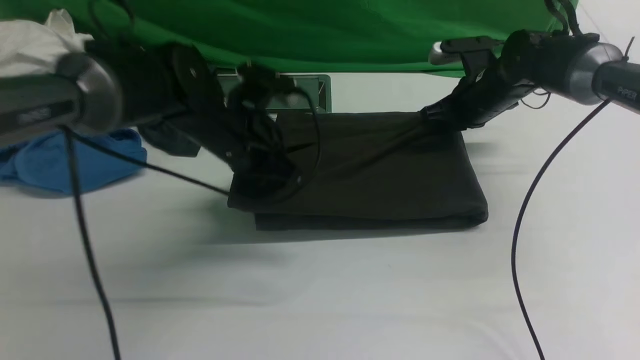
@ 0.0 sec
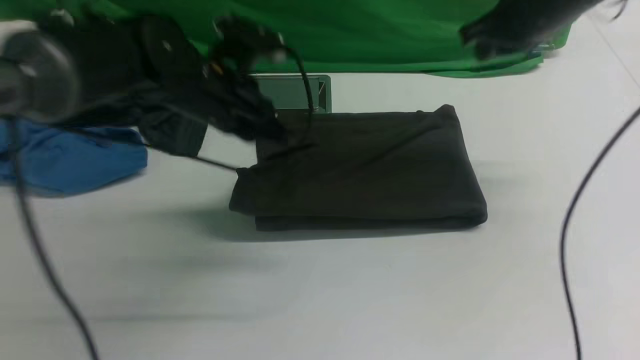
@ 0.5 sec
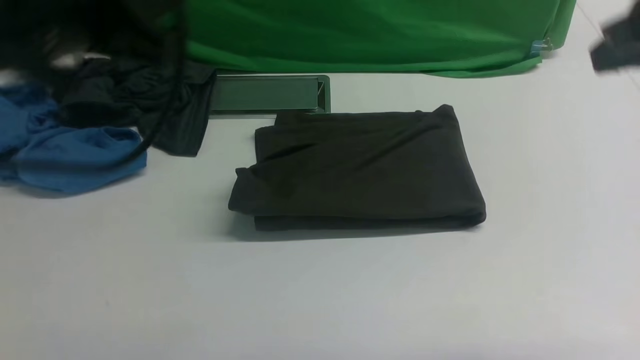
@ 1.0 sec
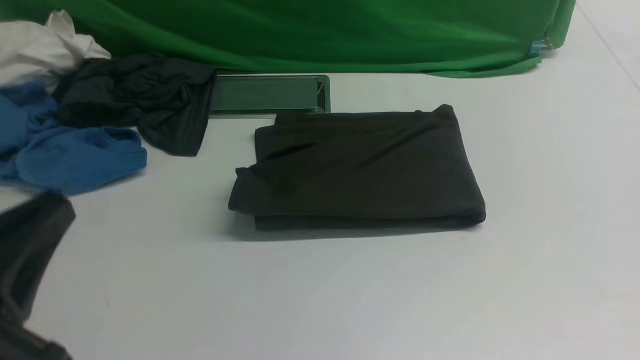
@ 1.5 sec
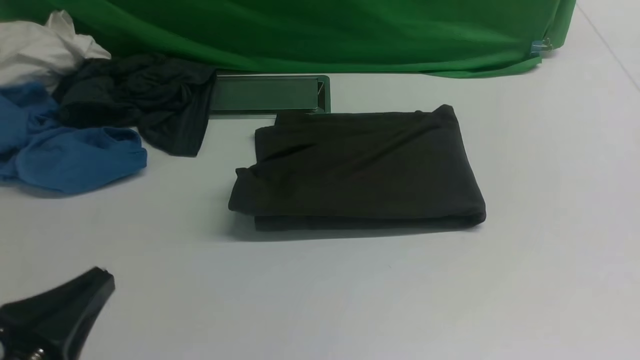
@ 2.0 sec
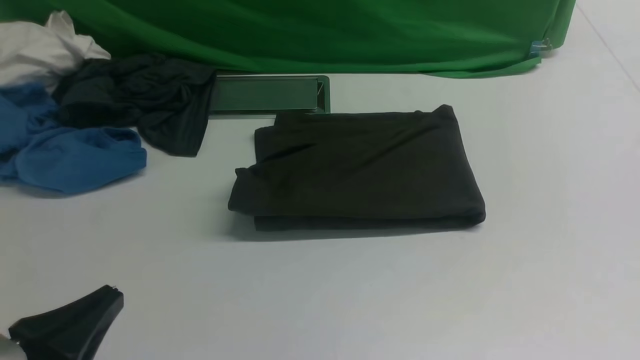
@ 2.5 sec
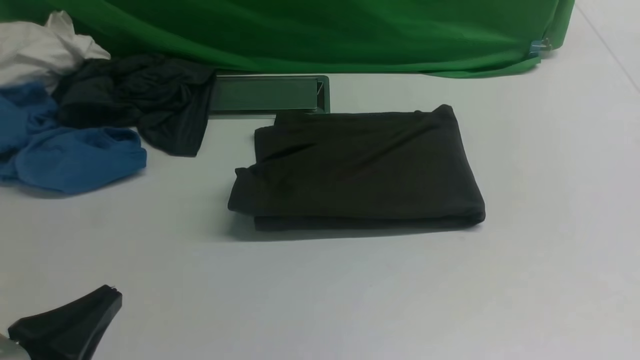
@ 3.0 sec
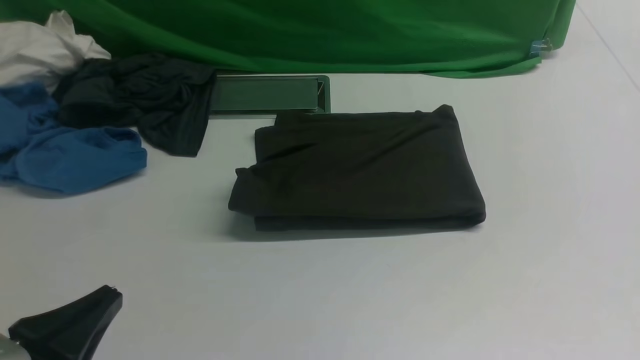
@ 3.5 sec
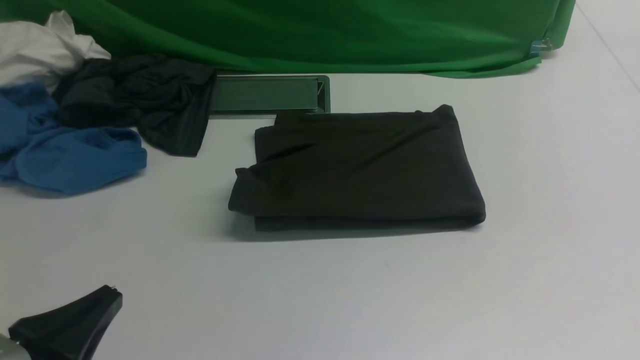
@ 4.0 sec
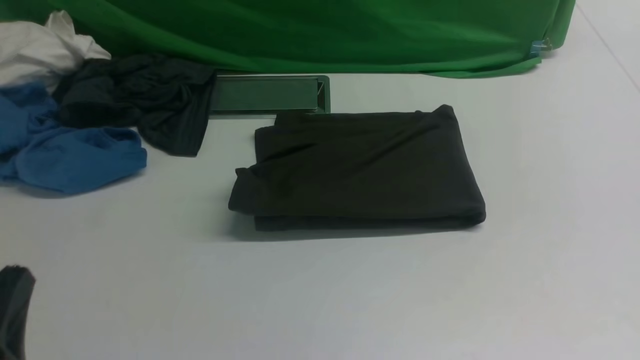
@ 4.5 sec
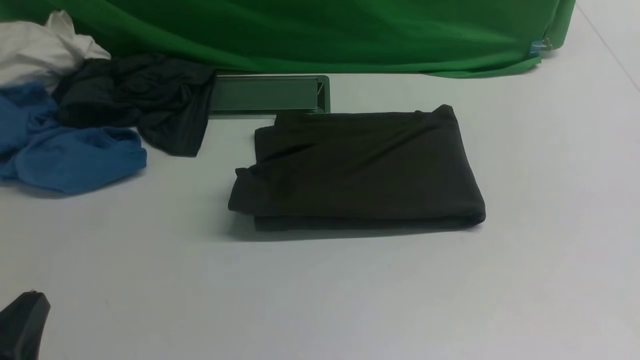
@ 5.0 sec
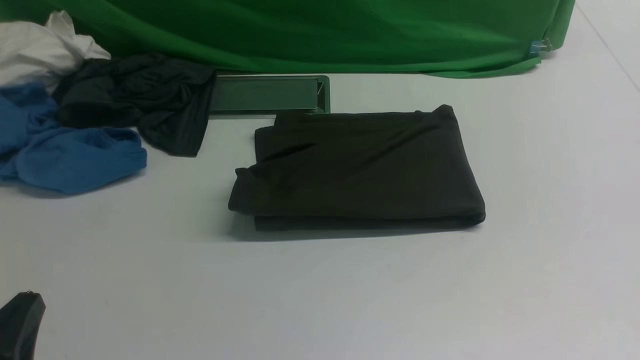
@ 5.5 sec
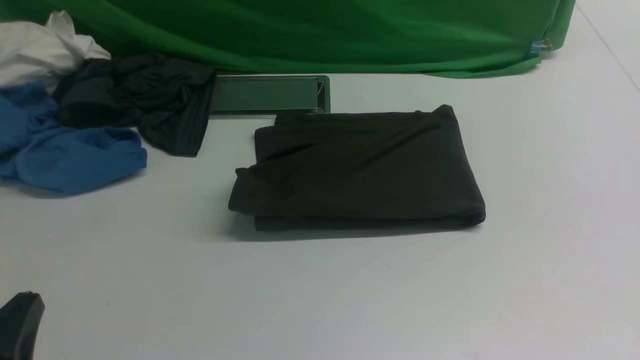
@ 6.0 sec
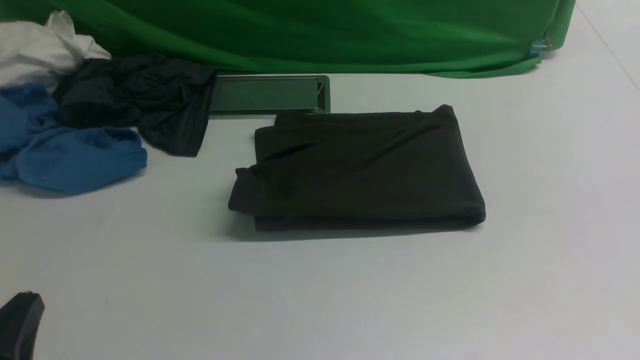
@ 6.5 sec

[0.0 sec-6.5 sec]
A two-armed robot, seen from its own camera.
0.0 sec to 2.0 sec: Both grippers move backward, about 35 cm.

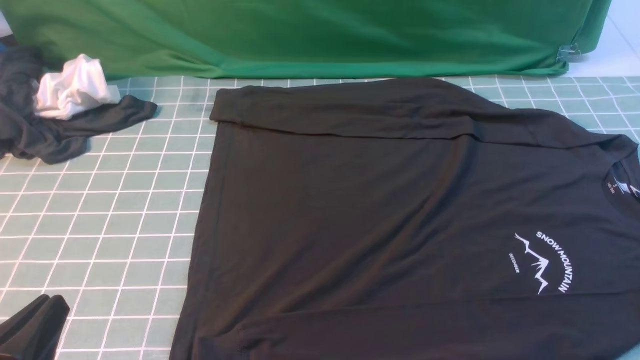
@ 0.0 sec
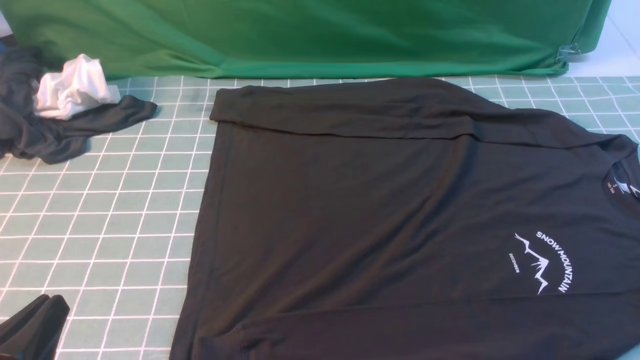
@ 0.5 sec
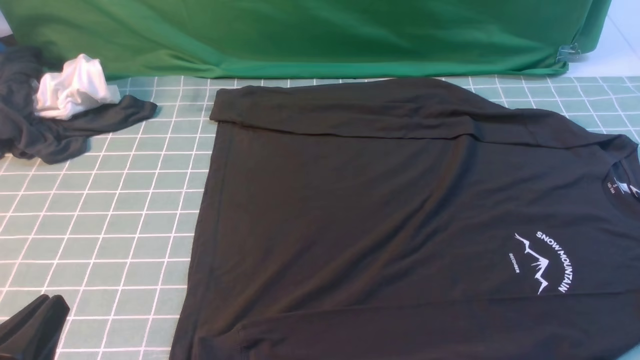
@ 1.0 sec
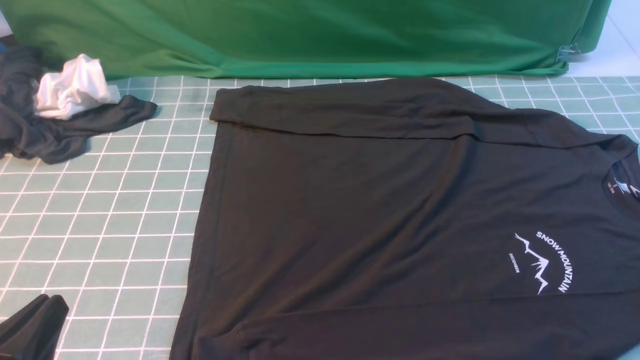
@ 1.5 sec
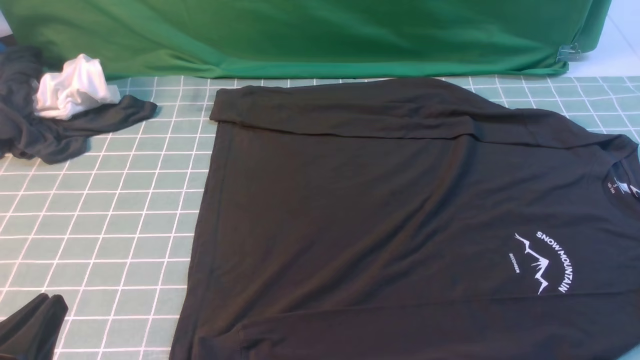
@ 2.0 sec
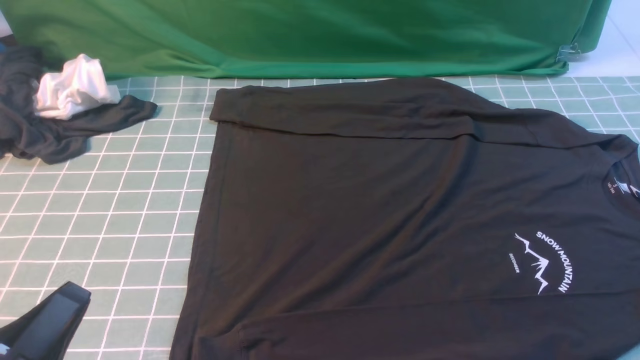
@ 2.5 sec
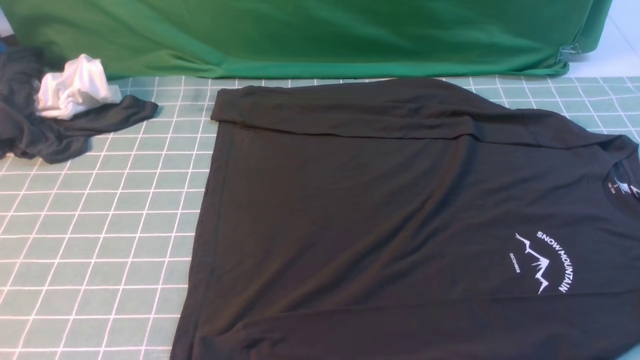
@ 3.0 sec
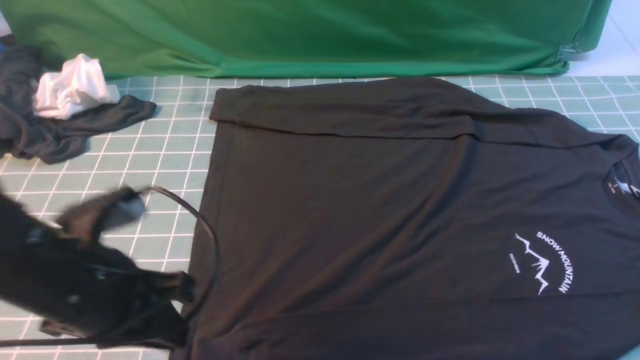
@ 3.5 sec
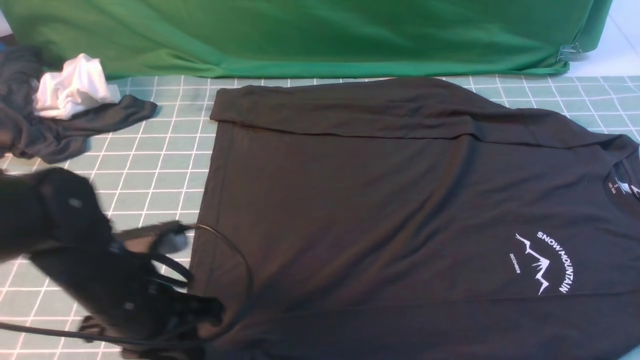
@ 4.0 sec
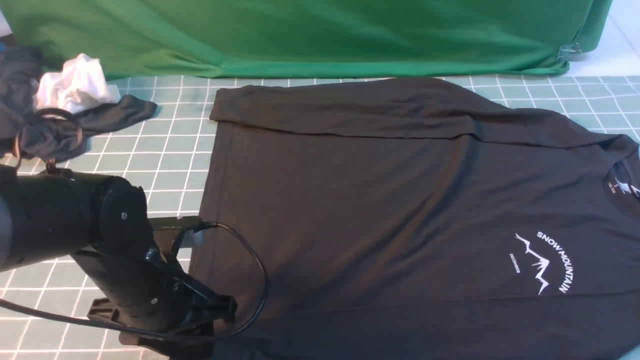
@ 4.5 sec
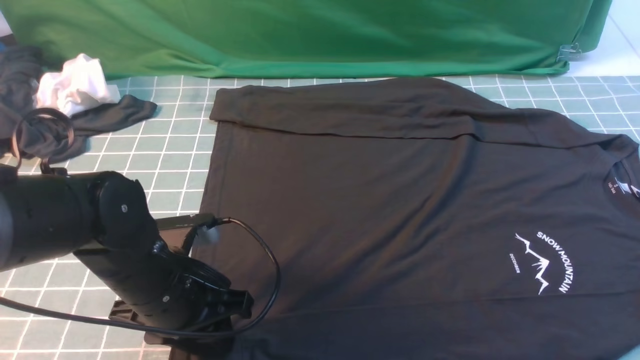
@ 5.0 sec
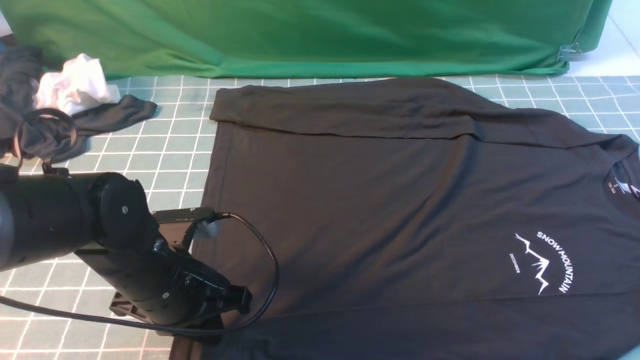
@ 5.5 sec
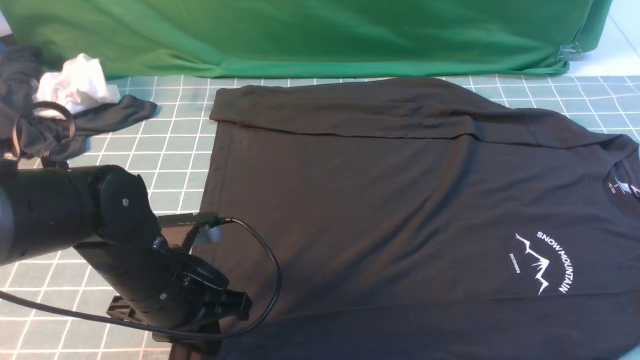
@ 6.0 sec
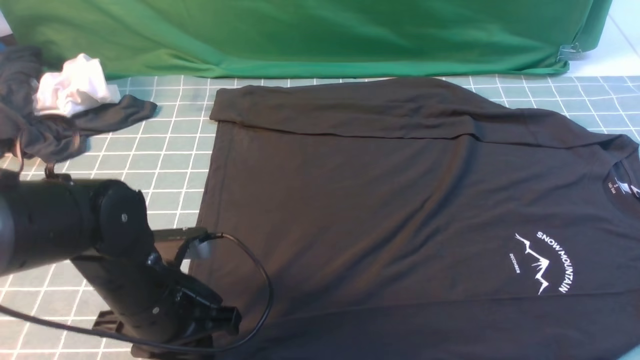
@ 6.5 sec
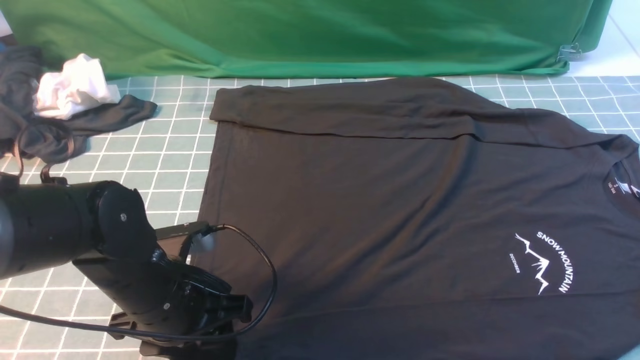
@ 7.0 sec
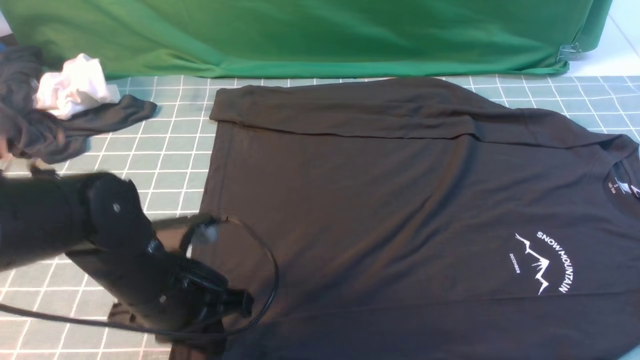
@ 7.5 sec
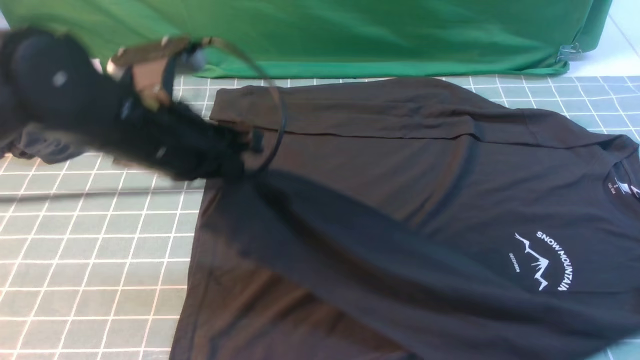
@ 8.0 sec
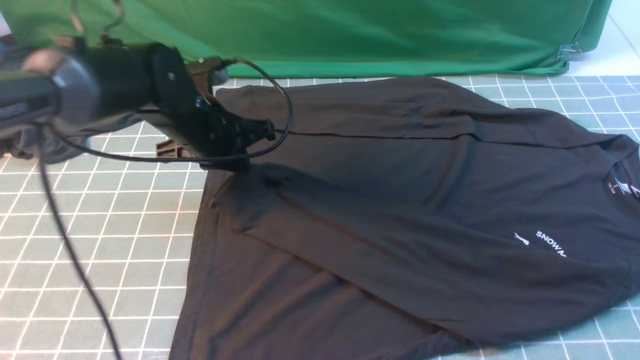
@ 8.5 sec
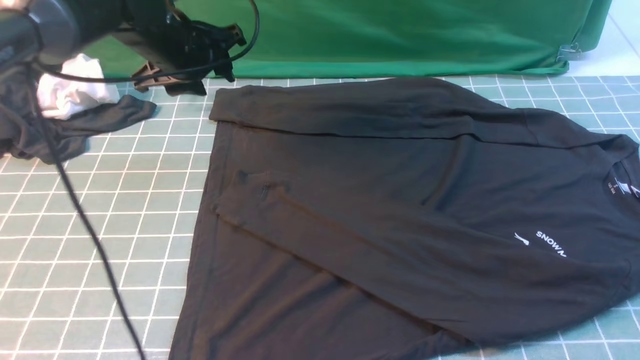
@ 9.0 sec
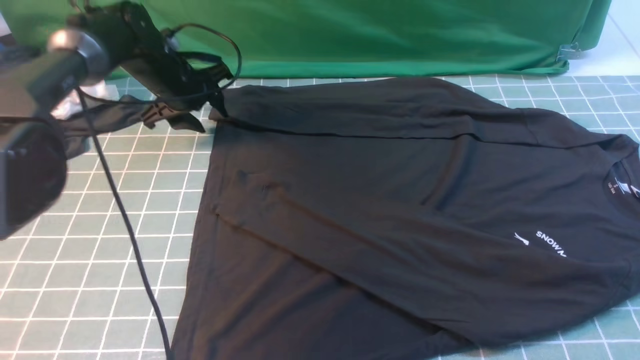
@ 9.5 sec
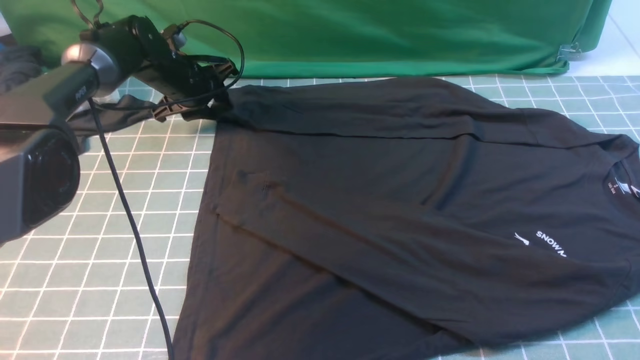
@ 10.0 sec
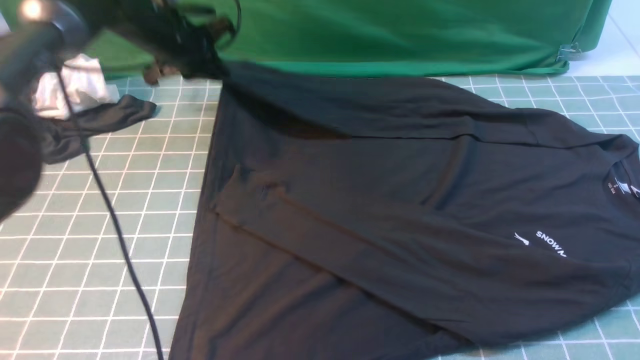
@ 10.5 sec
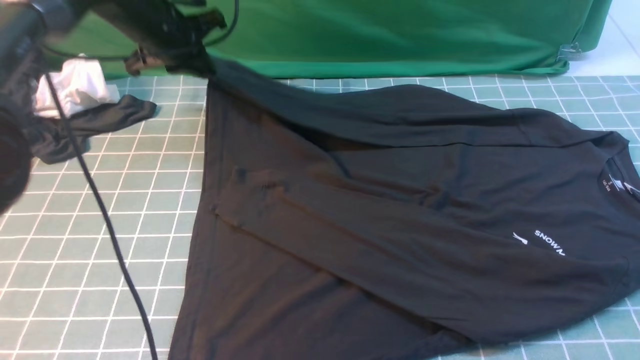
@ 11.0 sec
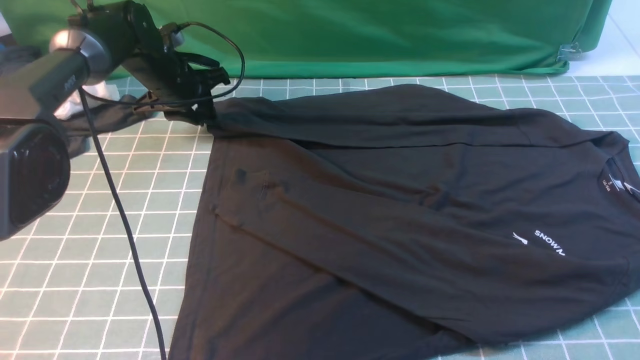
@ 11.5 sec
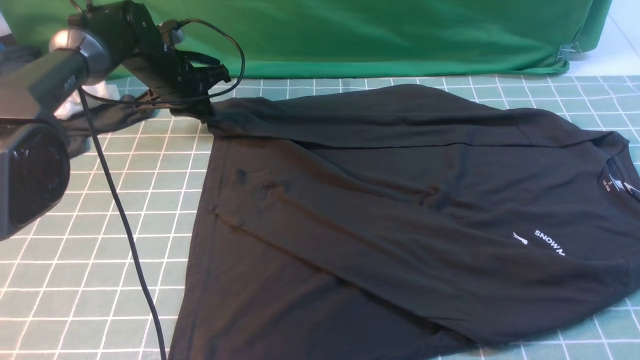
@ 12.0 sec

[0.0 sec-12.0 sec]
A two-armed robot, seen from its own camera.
Step, 0.0 sec to 6.0 sec: use the left arm to clamp the cuff closest to it.
Step, 6.5 sec to 8.5 sec: use the left arm to drag and place the cuff at the centered position on the left edge of the fabric.
2.0 sec to 4.0 sec: The left gripper goes roughly 15 cm forward and to the right.
4.0 sec to 6.0 sec: The left gripper opens, then closes once more.
6.0 sec to 8.0 sec: The left gripper moves upward and forward, some 15 cm, and opens, then closes once more.
8.0 sec to 10.0 sec: The left gripper goes roughly 30 cm forward and downward, and opens its fingers.
10.0 sec to 12.0 sec: The left gripper travels upward and back again, some 10 cm each way.

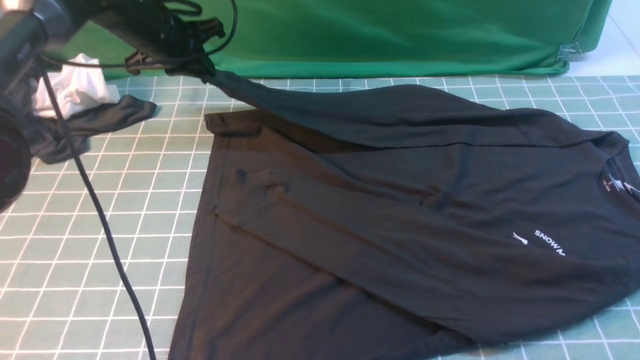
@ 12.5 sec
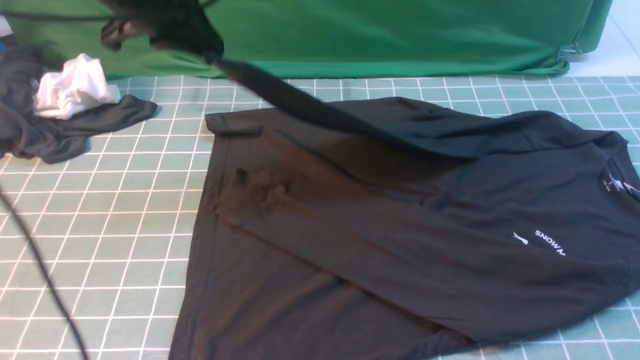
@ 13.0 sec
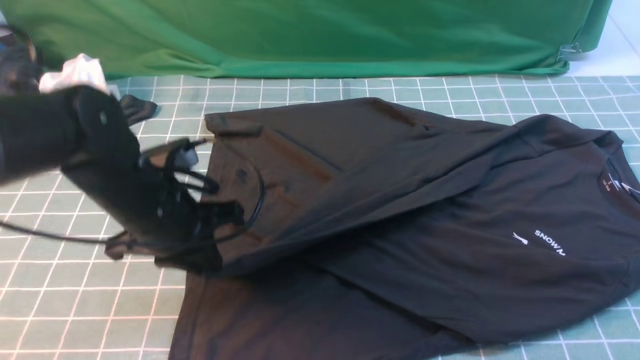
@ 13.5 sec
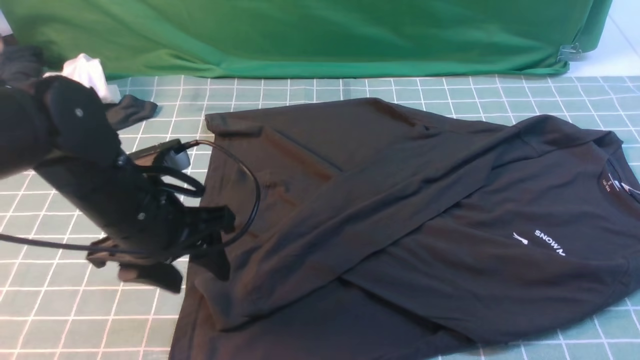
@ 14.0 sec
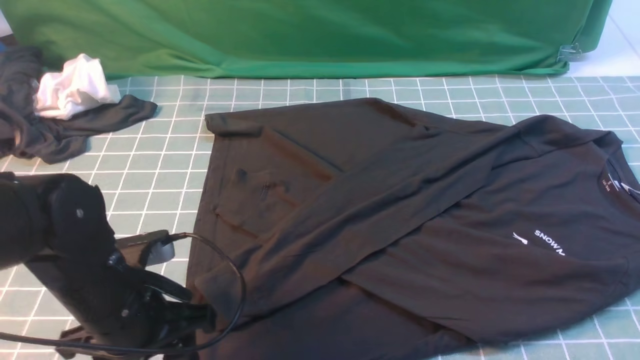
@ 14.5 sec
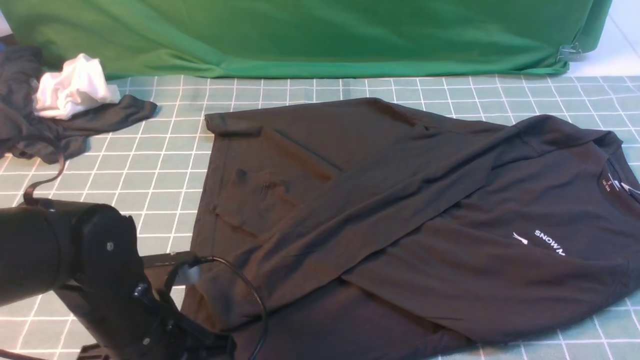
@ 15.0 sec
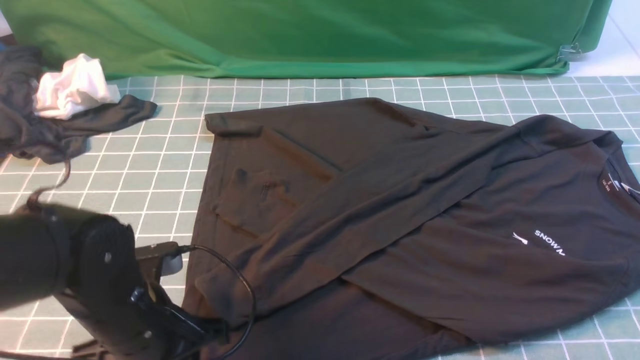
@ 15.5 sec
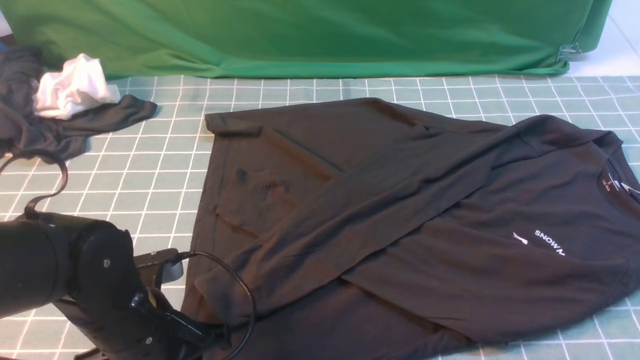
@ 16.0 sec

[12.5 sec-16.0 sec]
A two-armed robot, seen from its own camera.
Step, 12.5 sec to 13.5 sec: use the left arm to drag and drop the cuff onto the cuff closest to the left arm.
12.5 sec to 14.5 sec: The left gripper goes roughly 30 cm backward, and opens its fingers.
14.5 sec to 16.0 sec: There are only small adjustments of the grippers.
